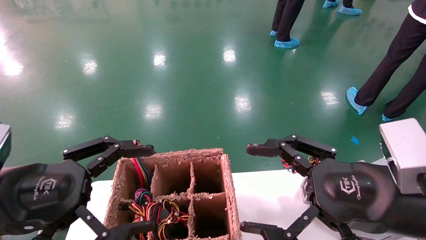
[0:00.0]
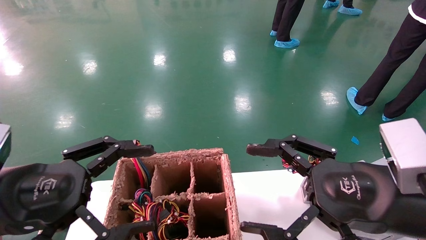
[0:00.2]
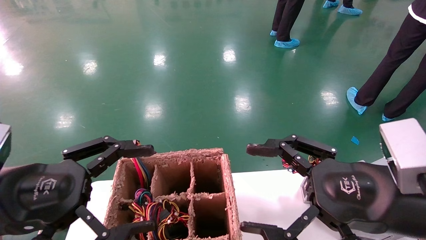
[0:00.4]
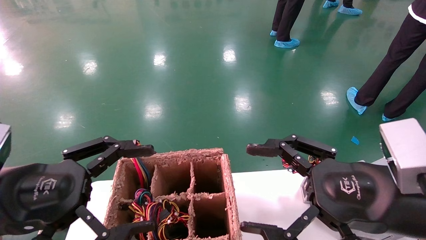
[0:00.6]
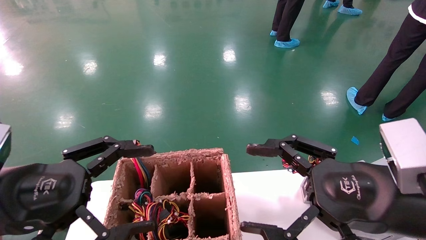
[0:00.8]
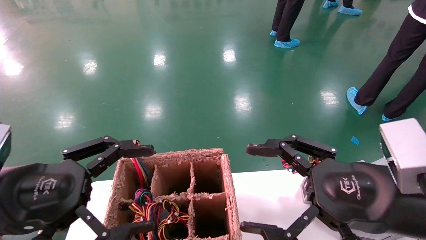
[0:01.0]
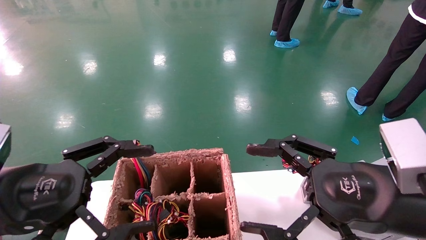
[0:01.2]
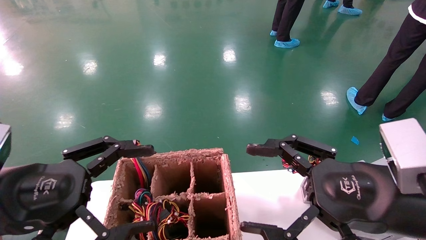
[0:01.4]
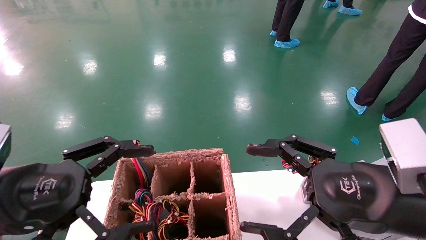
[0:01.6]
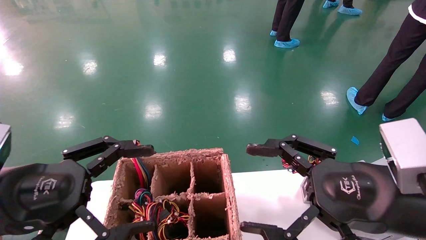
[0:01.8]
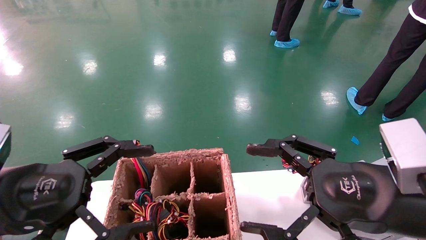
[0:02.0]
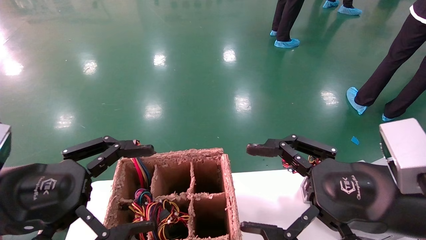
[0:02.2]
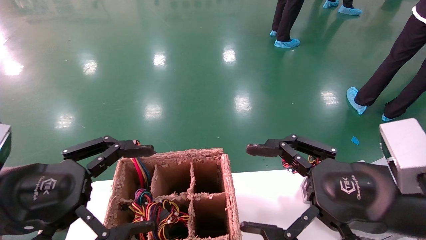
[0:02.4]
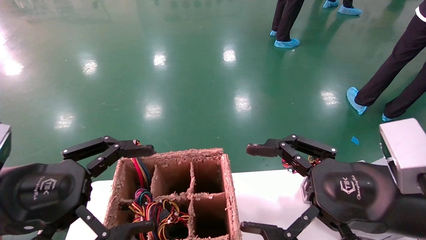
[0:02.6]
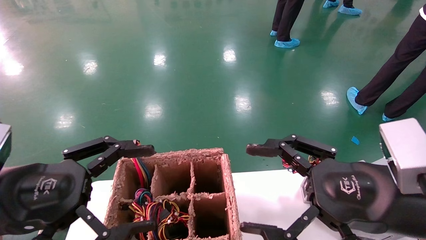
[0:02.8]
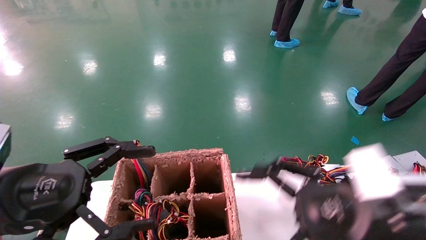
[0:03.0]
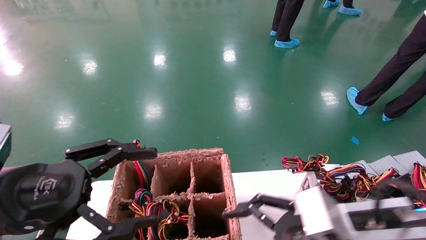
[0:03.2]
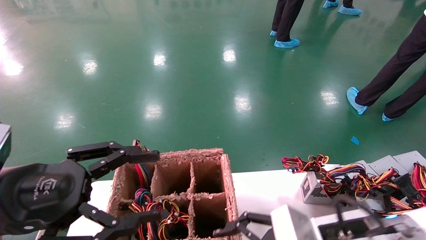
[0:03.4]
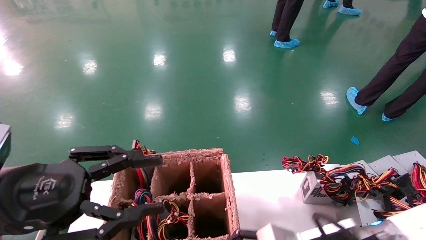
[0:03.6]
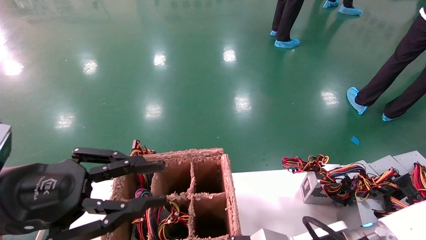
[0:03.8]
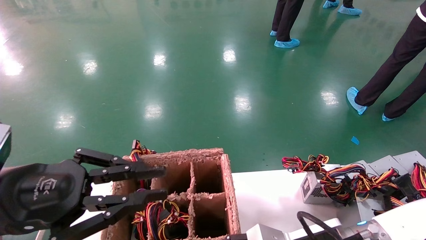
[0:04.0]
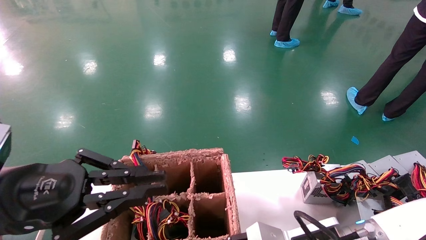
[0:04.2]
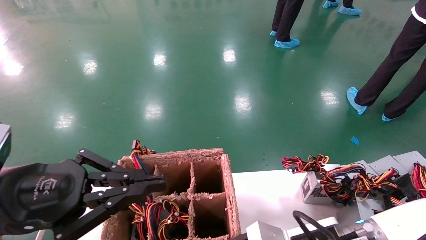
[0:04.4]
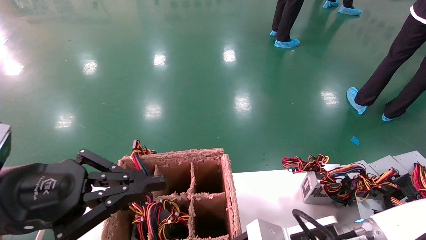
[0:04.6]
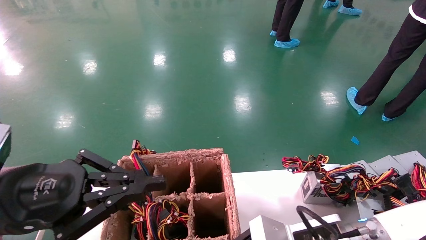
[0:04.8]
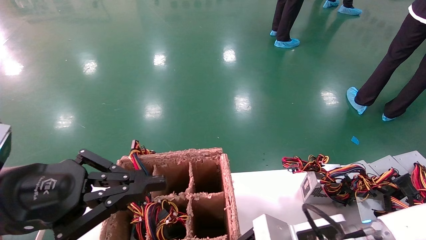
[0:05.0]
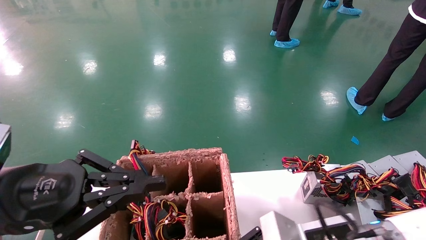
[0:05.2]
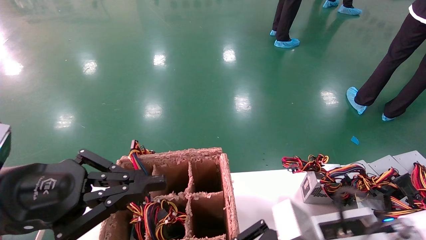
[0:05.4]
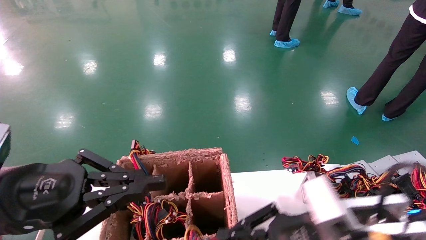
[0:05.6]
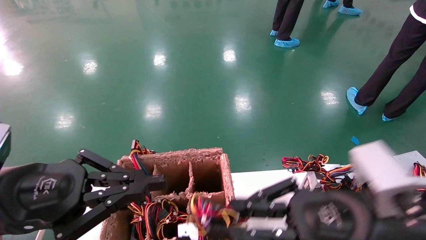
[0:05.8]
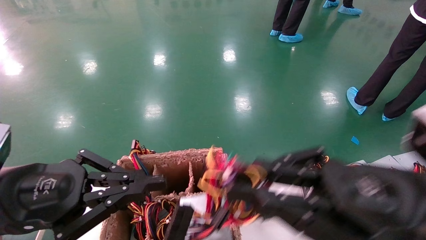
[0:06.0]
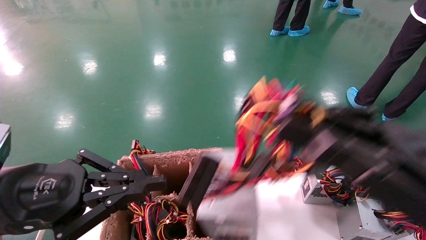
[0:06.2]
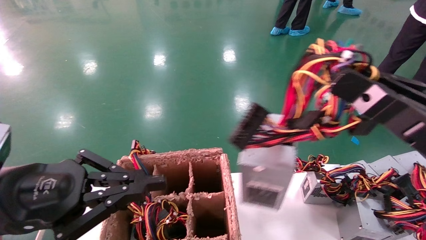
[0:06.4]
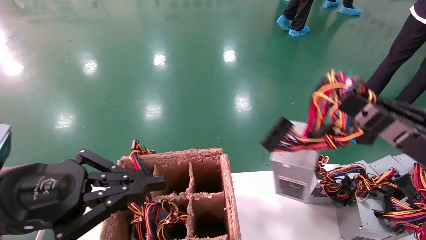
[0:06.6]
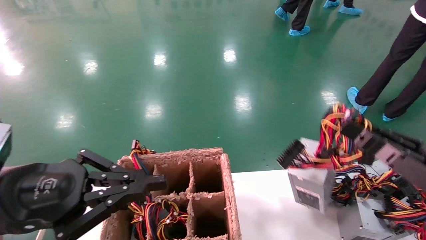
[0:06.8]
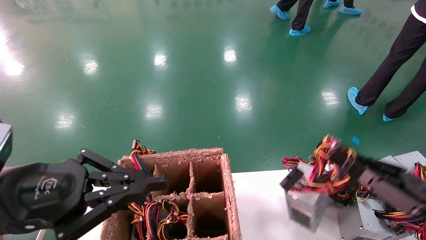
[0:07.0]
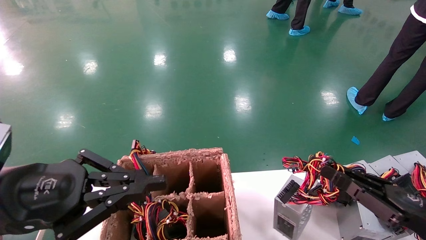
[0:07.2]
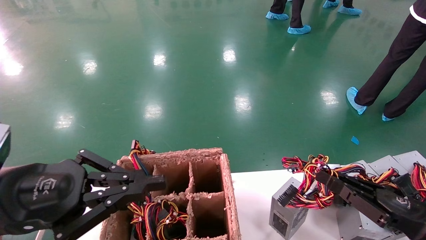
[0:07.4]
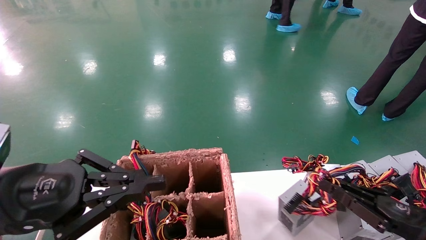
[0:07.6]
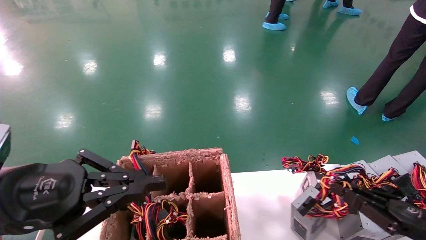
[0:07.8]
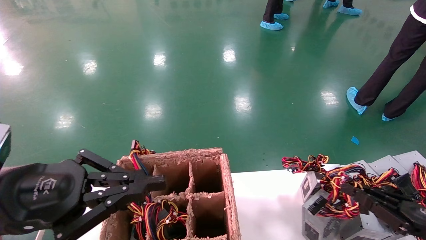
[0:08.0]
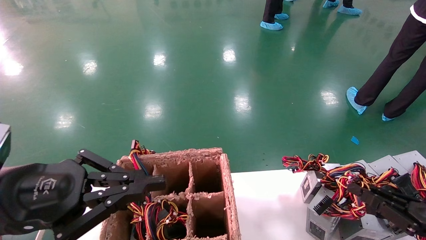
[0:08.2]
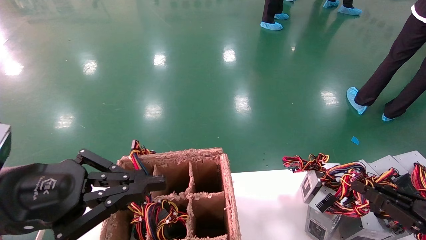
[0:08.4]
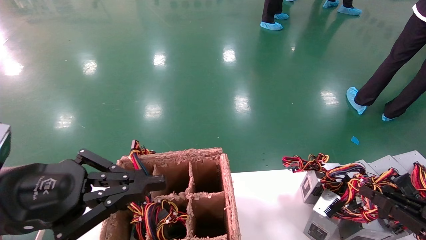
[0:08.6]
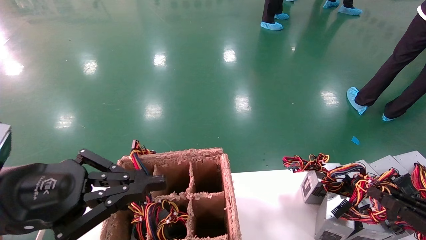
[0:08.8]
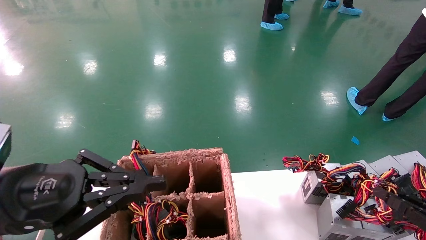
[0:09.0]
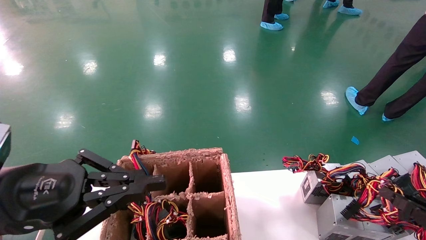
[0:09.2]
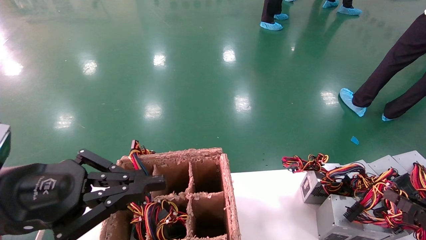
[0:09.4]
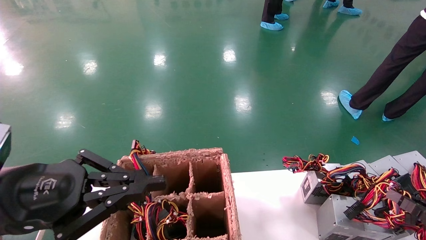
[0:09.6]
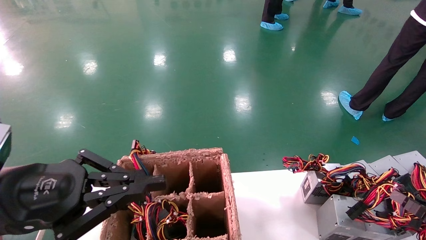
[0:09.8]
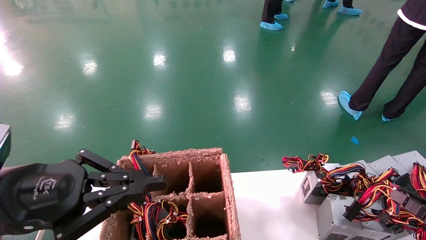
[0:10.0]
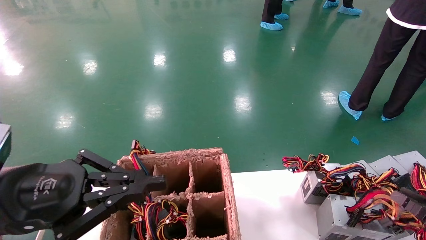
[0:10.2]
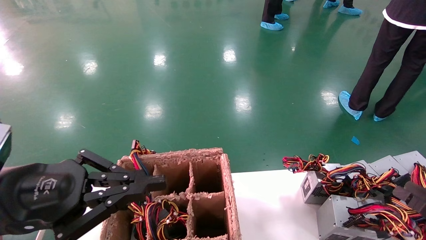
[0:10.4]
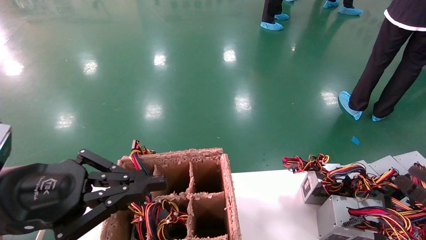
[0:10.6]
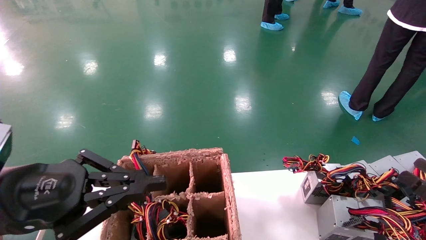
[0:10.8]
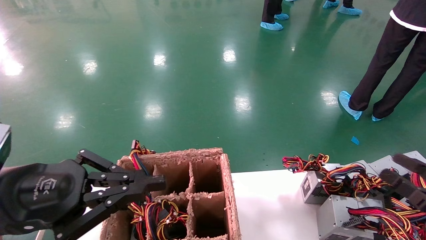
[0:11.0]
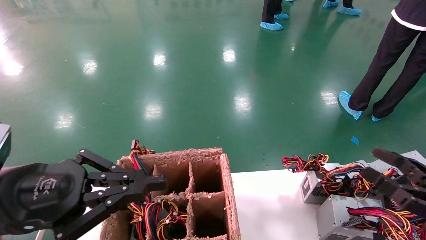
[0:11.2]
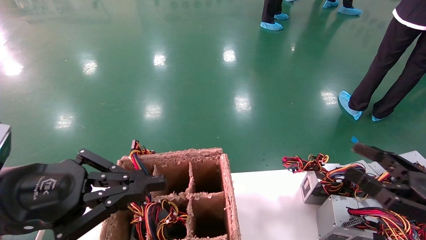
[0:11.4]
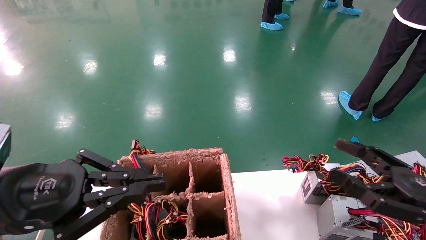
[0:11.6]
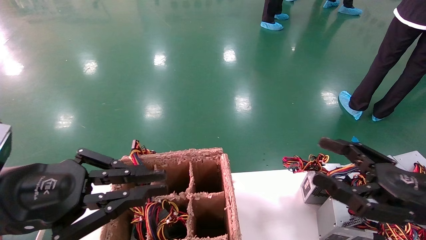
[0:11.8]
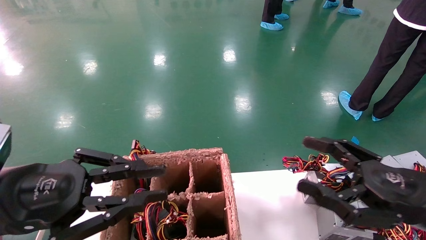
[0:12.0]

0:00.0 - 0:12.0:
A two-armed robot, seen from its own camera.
Step, 0:03.4 - 0:05.0: Grab the main unit power supply from the containment box.
Step, 0:05.2 - 0:10.4: Place the main unit power supply in the designated area.
0:00.0 - 0:01.6: Both grippers stay about where they are.
0:01.6 - 0:03.0: The grippers make only small movements.
0:03.0 - 0:04.4: The right gripper is displaced downward and to the left by roughly 10 cm, and closes up. Meanwhile the left gripper closes its fingers.
0:04.4 - 0:06.0: The right gripper shifts roughly 15 cm upward, to the right and backward, and closes up.
0:06.0 - 0:07.6: The right gripper moves to the right and downward, approximately 20 cm.
0:07.6 - 0:09.0: The right gripper shifts approximately 10 cm to the right.
0:09.0 - 0:10.4: The right gripper opens up.
0:10.4 - 0:12.0: The right gripper travels to the left and upward by roughly 20 cm, and opens.

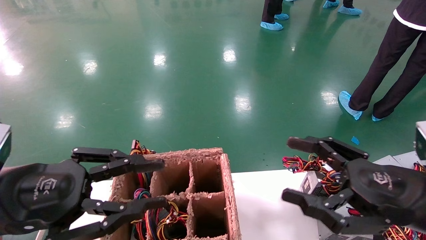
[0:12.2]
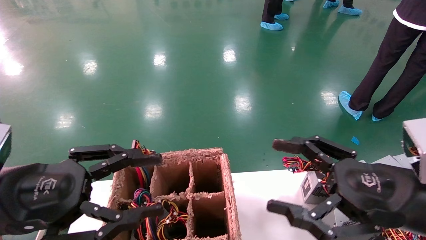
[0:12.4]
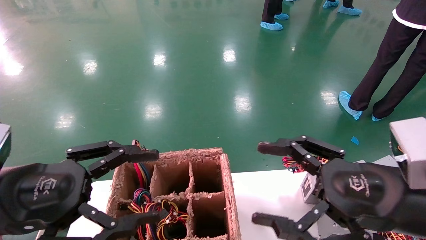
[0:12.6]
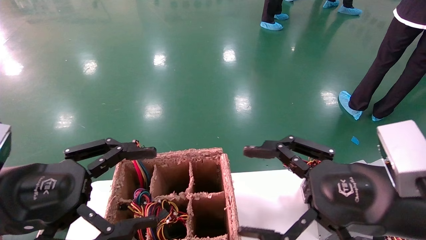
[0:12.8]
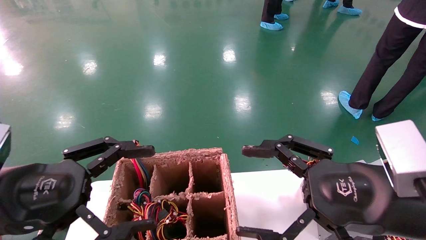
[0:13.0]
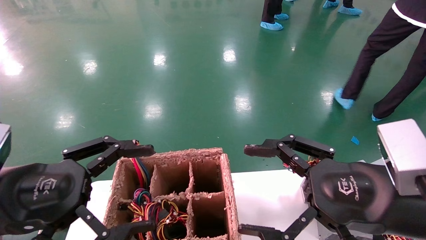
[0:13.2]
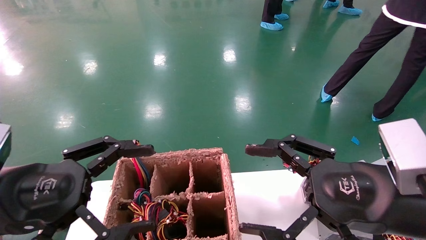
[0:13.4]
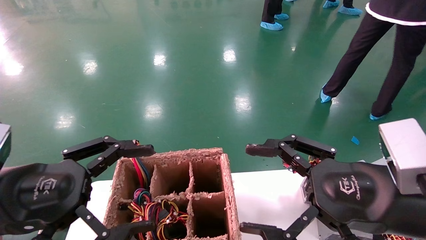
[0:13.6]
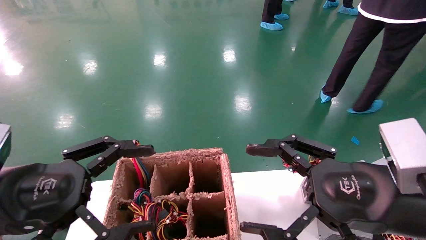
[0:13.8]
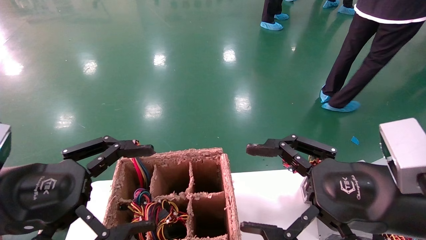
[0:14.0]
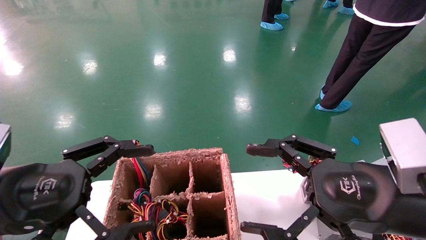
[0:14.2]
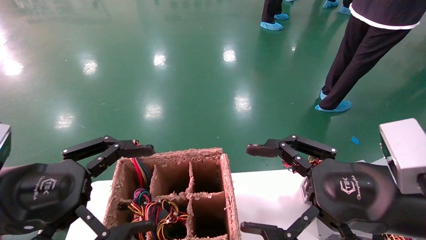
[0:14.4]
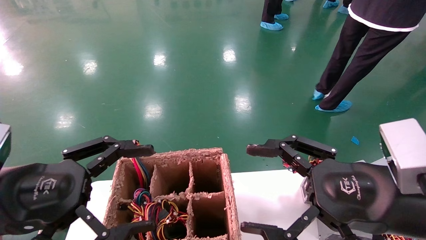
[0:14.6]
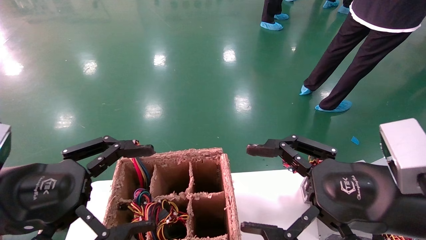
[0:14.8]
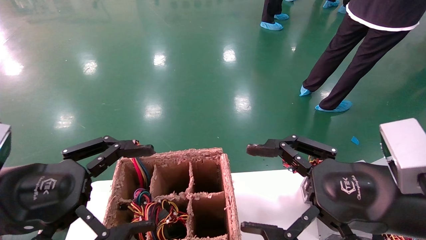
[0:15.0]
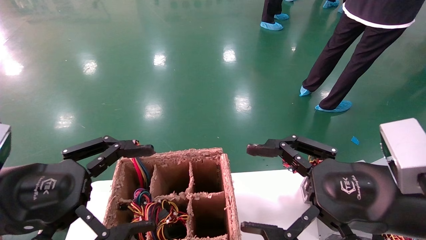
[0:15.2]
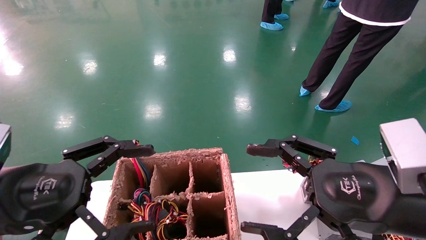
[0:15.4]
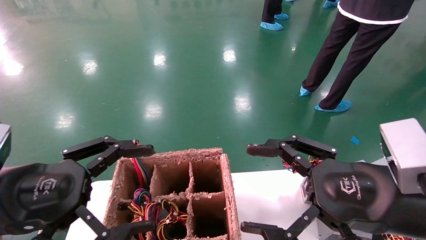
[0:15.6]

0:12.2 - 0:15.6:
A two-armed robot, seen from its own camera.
0:12.2 - 0:13.8: The right gripper goes about 5 cm to the left. The left gripper opens up.
0:13.8 - 0:15.6: The two grippers keep their place.
